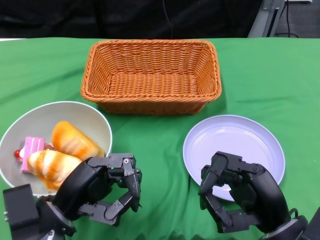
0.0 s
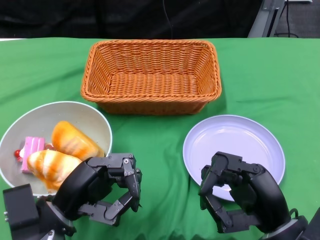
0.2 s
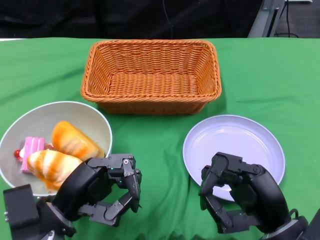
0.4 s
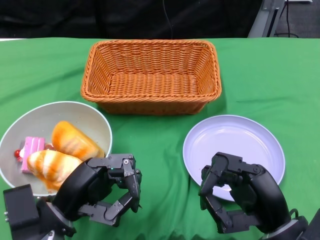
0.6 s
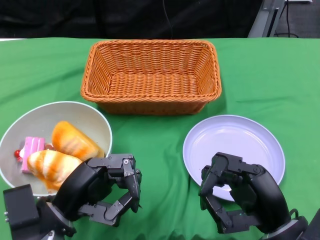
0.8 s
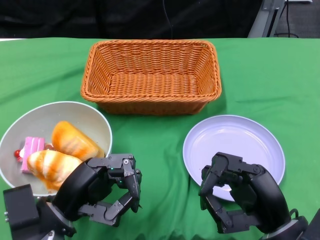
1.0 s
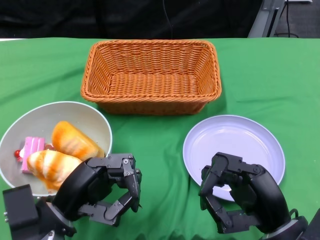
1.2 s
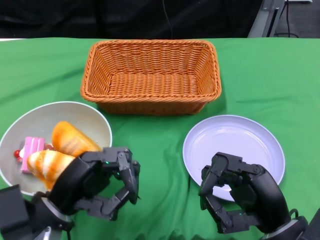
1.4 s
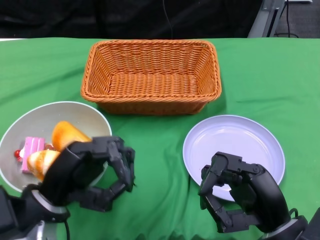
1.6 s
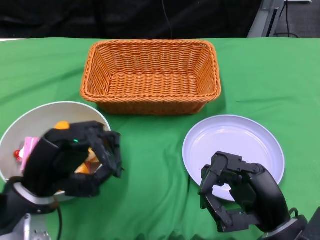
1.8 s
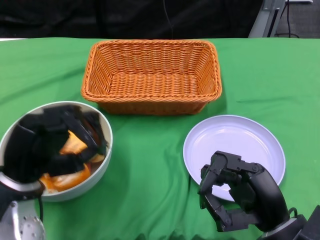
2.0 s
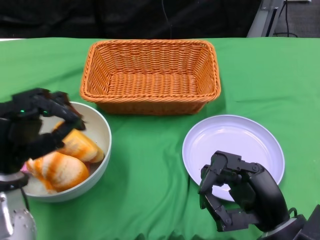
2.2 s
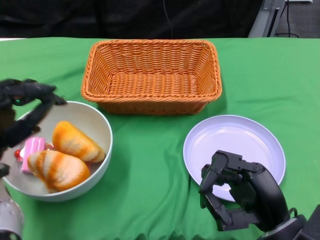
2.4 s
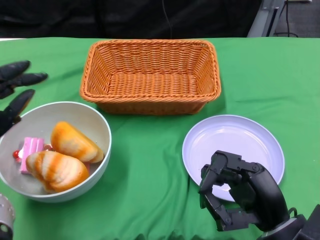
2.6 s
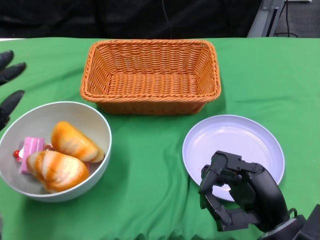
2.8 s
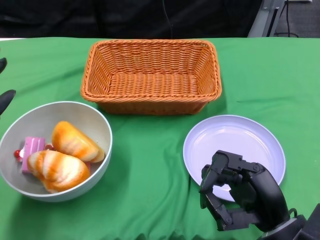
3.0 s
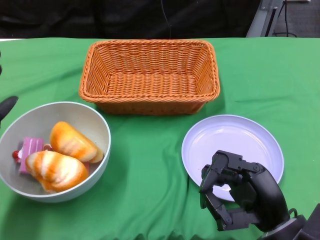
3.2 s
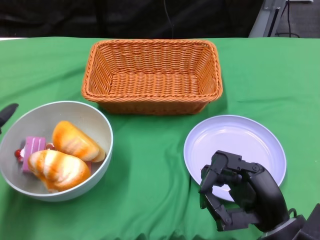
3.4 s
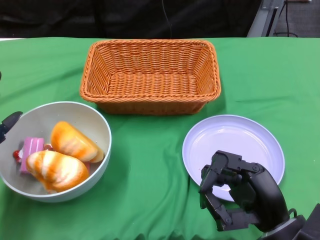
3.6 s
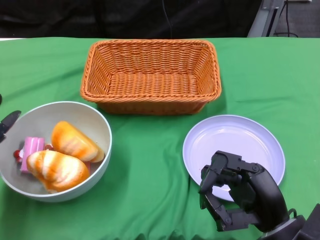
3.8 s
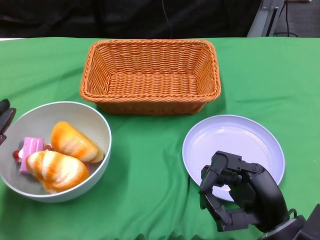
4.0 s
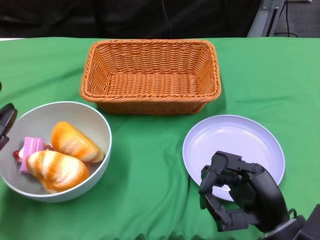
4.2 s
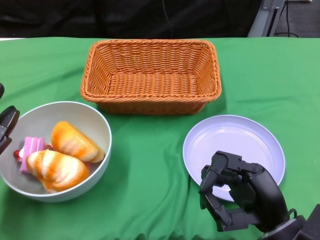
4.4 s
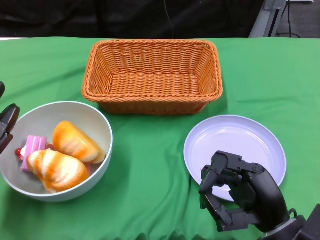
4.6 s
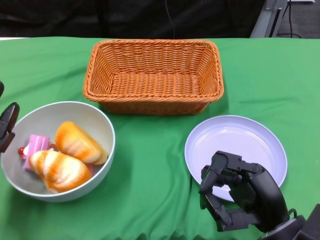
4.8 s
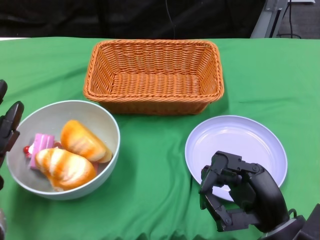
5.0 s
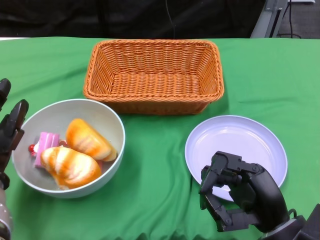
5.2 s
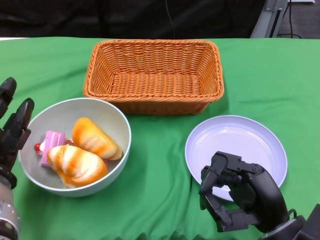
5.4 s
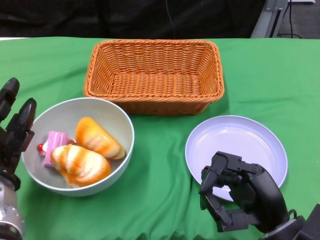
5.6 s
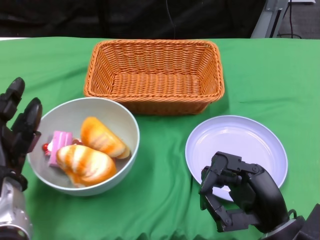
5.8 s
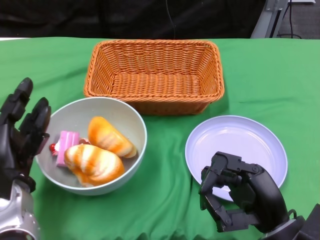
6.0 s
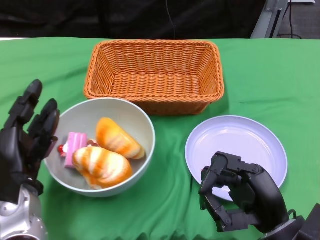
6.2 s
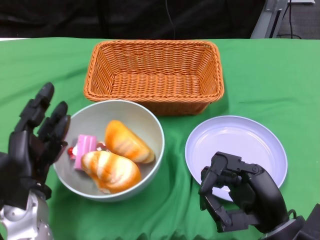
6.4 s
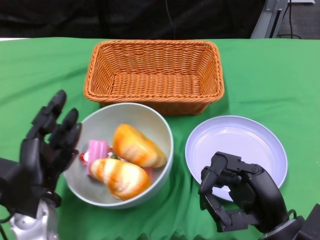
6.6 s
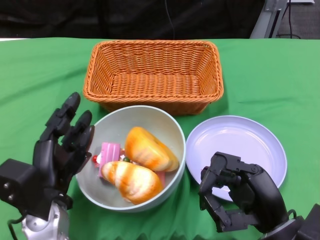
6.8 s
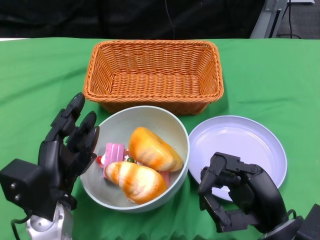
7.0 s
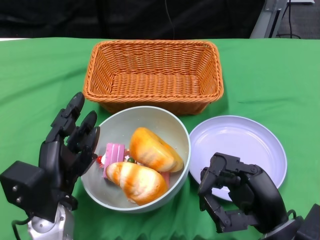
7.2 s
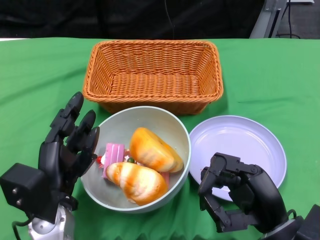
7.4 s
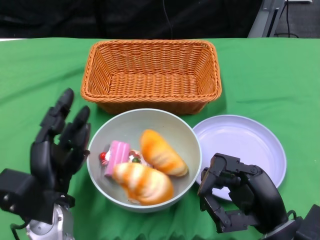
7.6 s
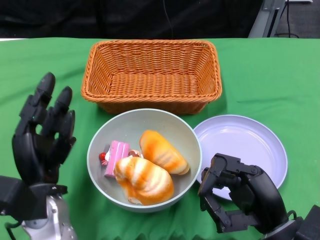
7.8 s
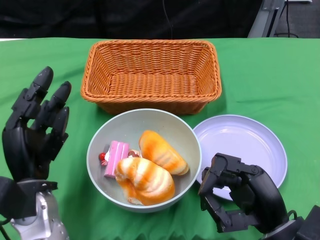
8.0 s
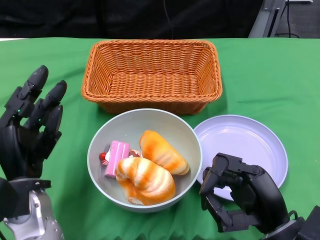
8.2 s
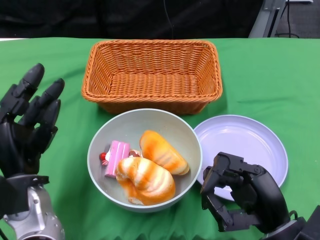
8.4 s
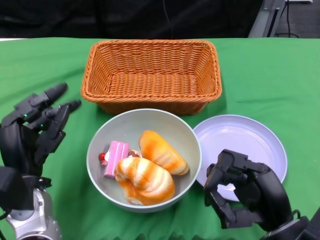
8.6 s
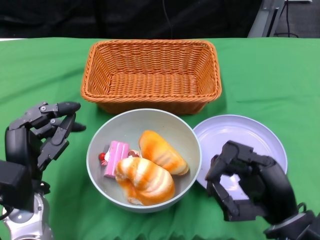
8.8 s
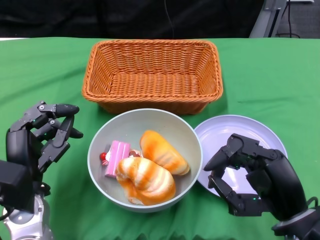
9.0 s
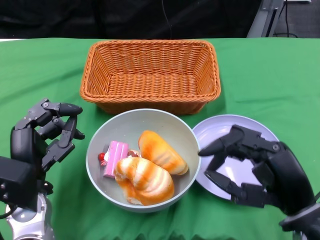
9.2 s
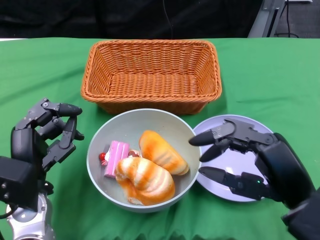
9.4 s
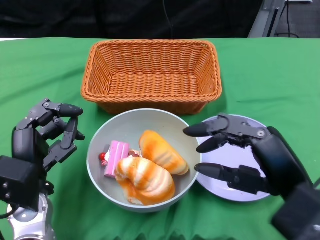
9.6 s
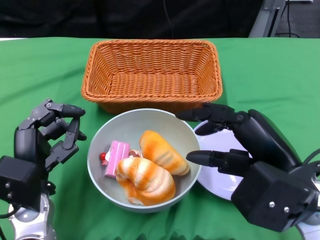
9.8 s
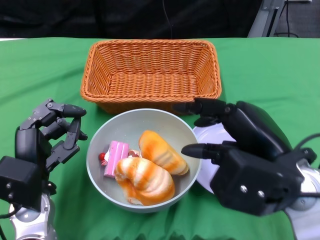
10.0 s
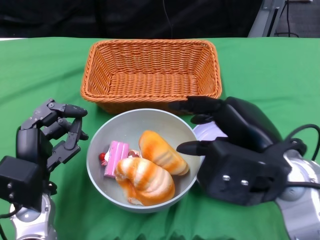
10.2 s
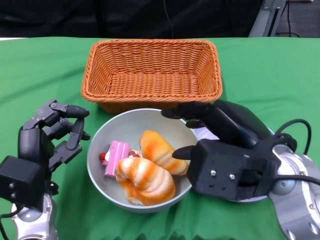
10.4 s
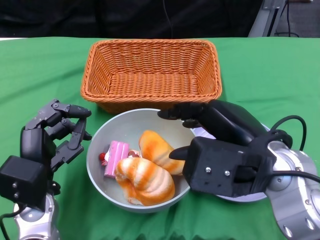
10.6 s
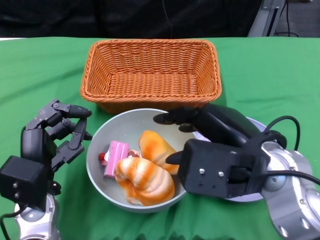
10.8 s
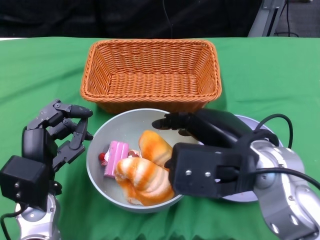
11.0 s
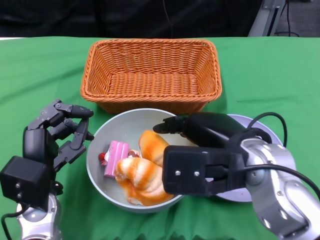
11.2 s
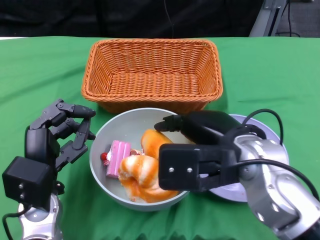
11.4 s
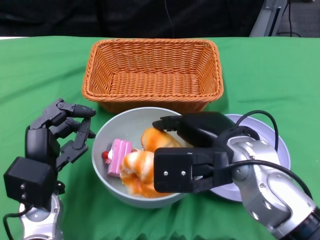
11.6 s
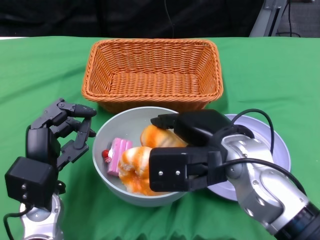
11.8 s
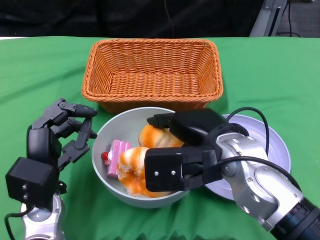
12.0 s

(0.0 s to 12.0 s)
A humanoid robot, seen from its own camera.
Step, 0.0 s - 7.6 s: Push the bowl to the center of the table using the left gripper.
1.6 s - 3.0 s: The left hand goes approximately 10 cm to the left.
4.4 s - 6.0 s: The left hand heads to the right, covering approximately 5 cm.
6.0 s - 7.6 s: The left hand moves to the right, approximately 5 cm.
9.0 s - 10.4 s: The right hand moves upward, roughly 10 cm.
10.4 s - 12.0 s: The right hand heads to the left, covering about 5 cm.

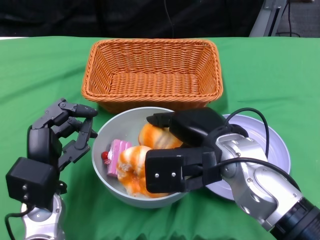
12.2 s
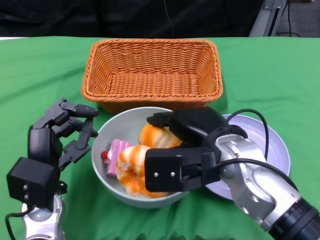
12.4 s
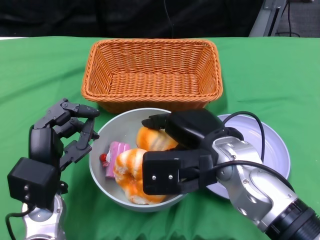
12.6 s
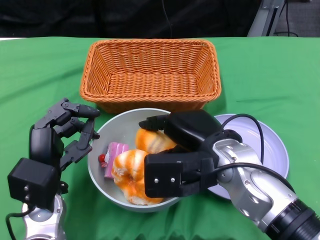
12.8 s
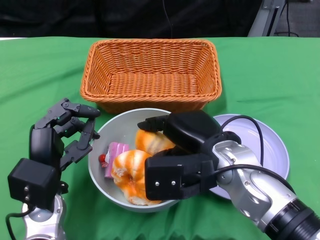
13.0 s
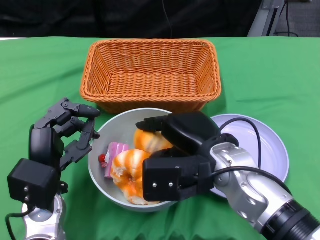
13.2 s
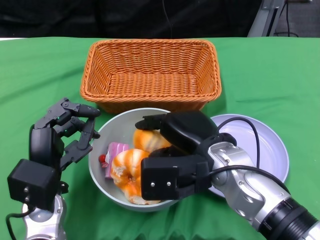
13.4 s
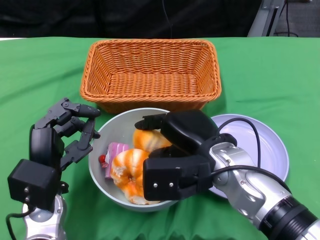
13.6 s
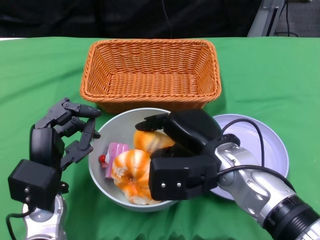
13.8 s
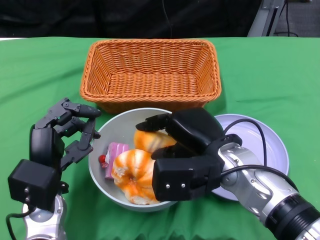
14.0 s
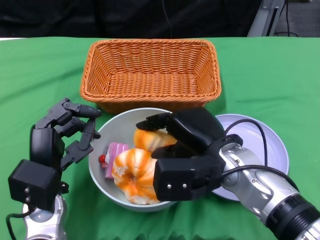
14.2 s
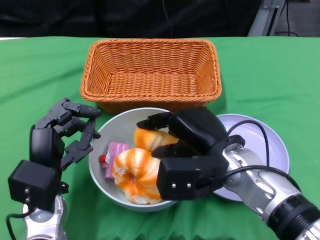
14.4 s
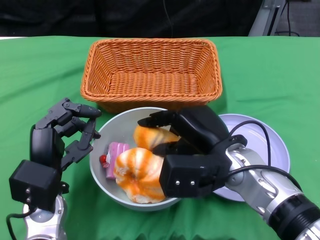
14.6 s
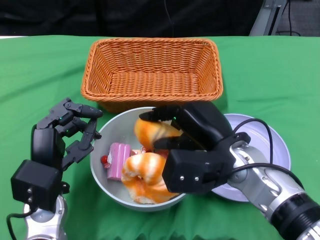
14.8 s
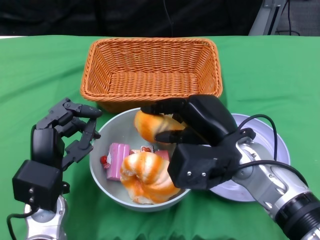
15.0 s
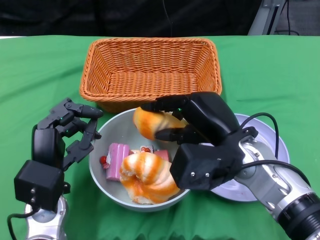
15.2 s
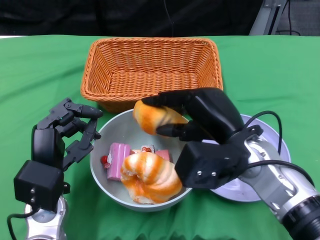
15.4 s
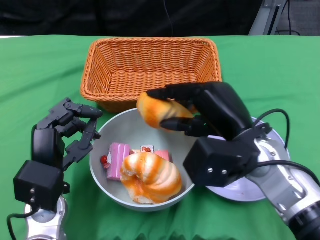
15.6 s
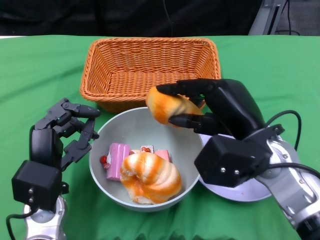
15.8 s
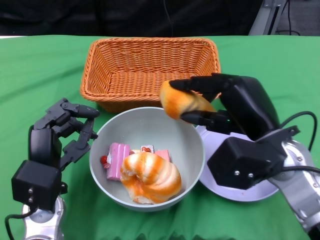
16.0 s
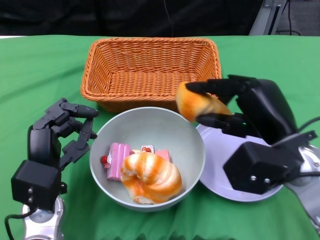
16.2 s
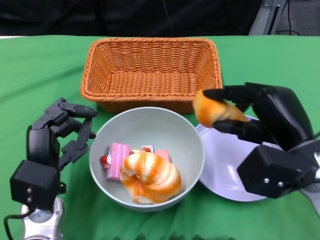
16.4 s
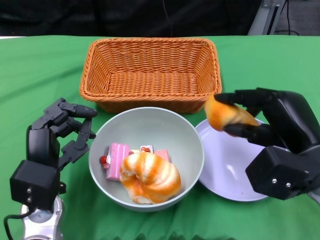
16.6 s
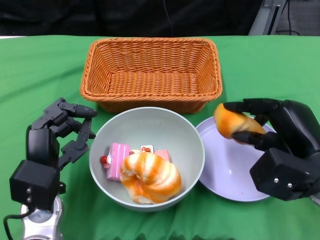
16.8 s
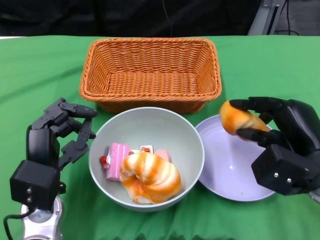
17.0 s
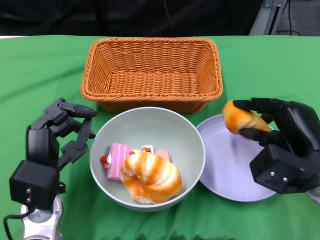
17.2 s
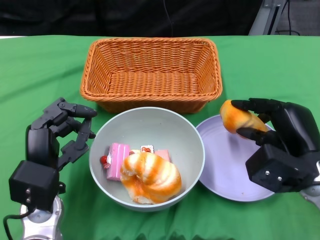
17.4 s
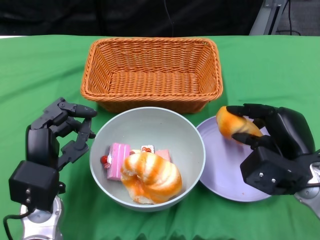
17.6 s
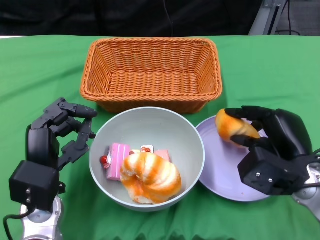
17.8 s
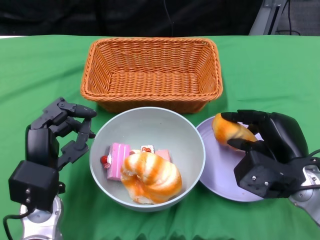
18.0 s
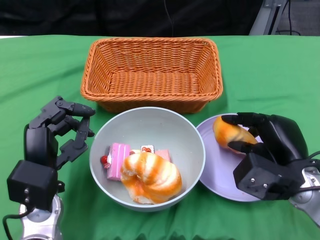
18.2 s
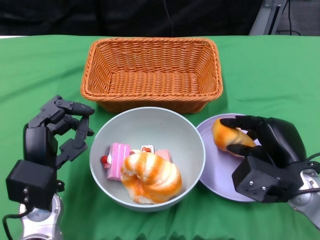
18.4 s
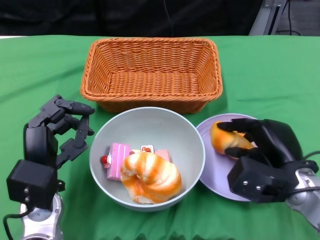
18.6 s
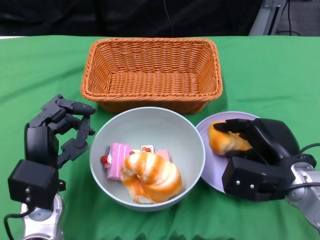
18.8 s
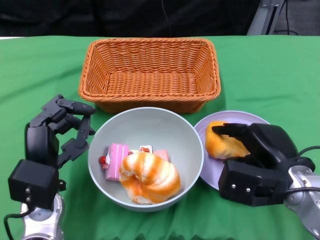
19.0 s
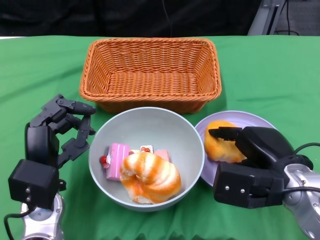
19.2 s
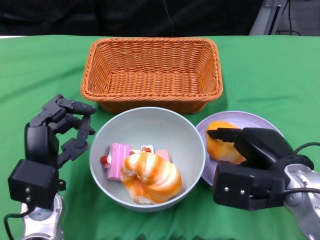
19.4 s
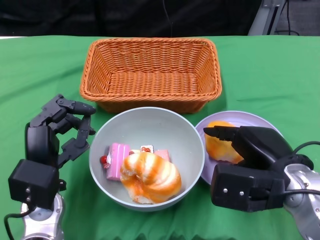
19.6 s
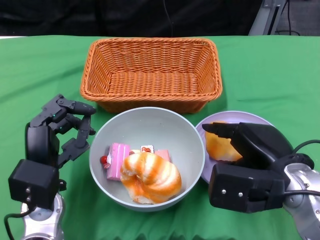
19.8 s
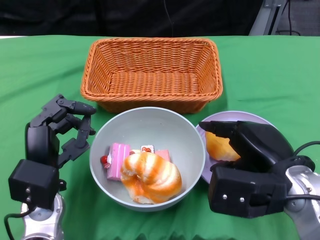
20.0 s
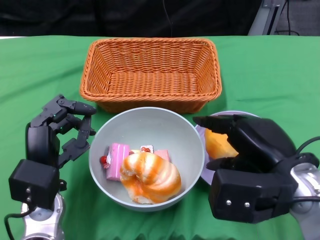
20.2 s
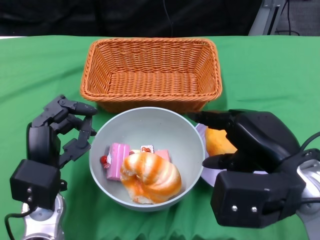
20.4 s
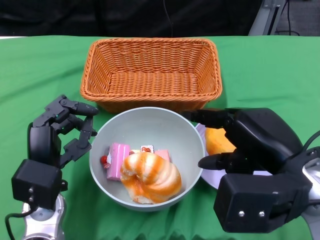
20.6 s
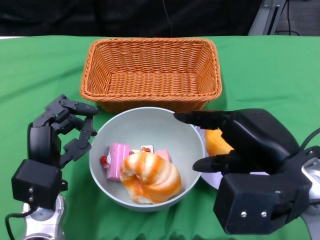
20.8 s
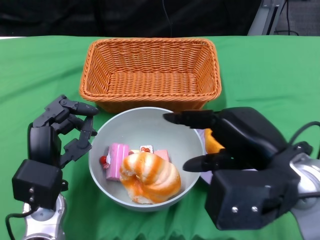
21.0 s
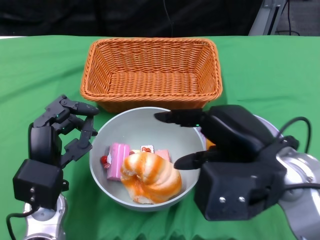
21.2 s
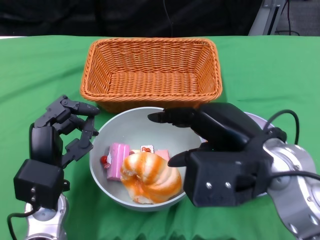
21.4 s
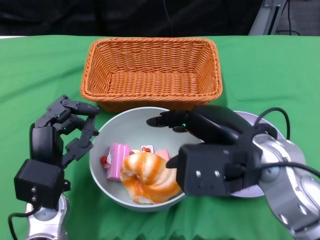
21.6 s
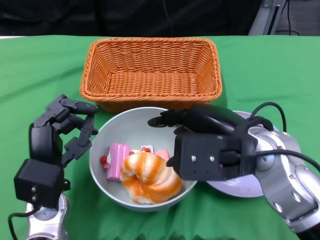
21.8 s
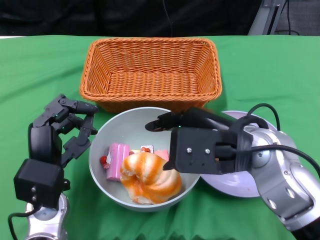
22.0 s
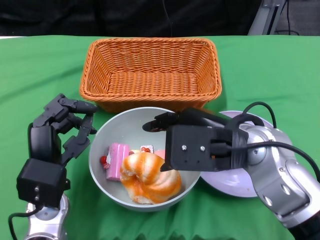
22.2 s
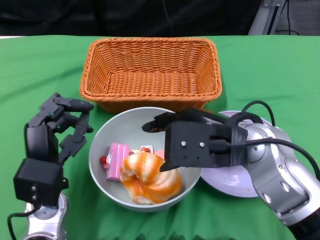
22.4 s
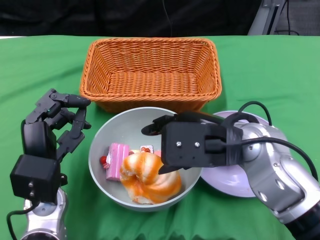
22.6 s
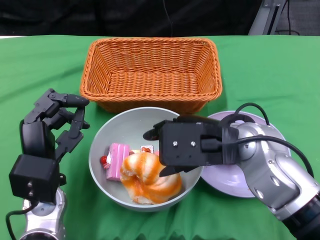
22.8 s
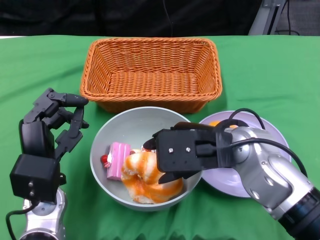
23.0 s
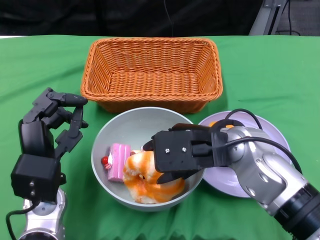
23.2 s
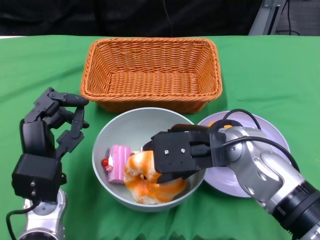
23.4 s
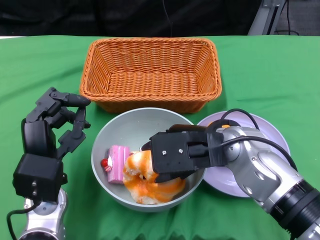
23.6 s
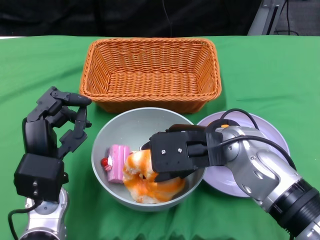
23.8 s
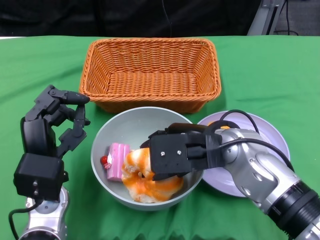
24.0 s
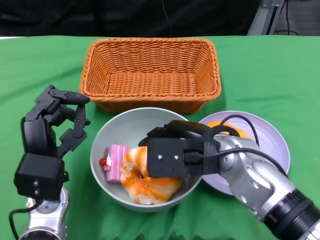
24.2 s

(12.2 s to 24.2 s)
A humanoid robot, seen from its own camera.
15.2 s - 16.6 s: The right hand moves to the right, some 10 cm.
16.6 s - 18.2 s: The right hand is displaced downward by about 5 cm.
18.2 s - 19.8 s: The right hand goes roughly 5 cm upward.
19.8 s - 21.2 s: The right hand heads upward, covering roughly 5 cm.
21.2 s - 22.6 s: The right hand moves approximately 5 cm.
22.6 s - 24.2 s: The right hand ends up approximately 5 cm from where it was.
